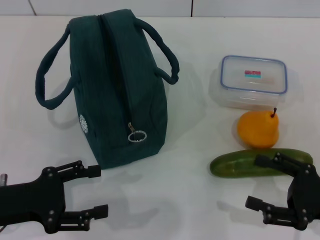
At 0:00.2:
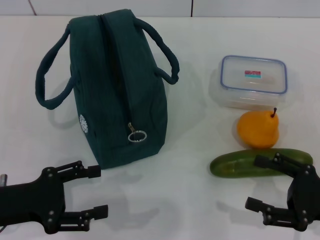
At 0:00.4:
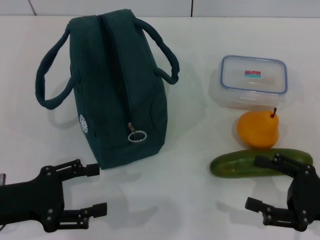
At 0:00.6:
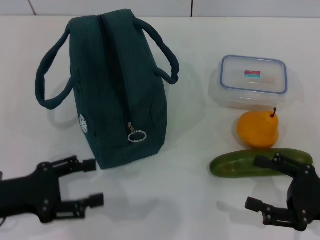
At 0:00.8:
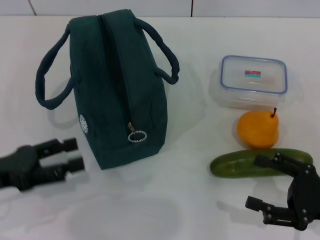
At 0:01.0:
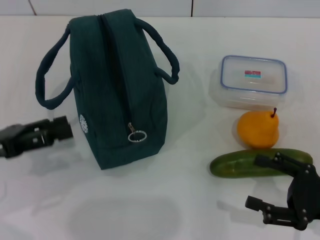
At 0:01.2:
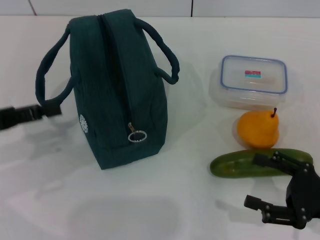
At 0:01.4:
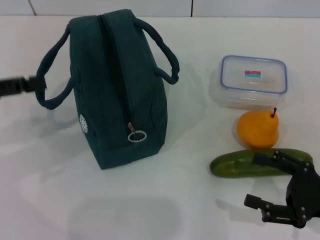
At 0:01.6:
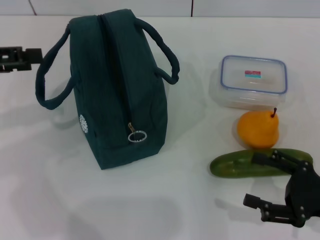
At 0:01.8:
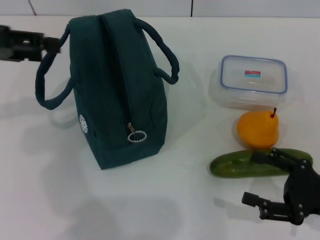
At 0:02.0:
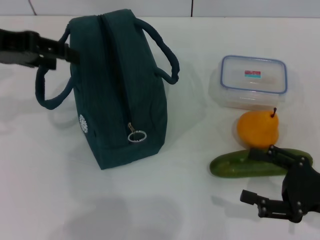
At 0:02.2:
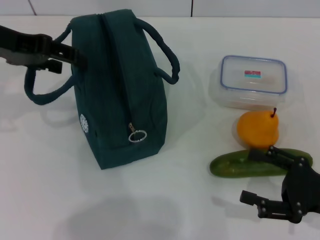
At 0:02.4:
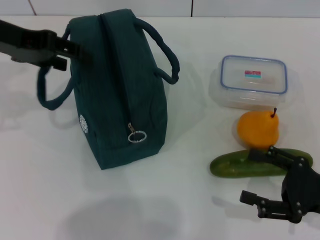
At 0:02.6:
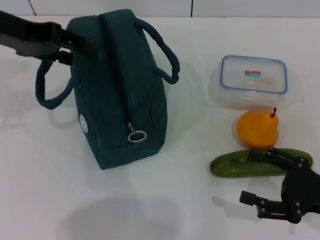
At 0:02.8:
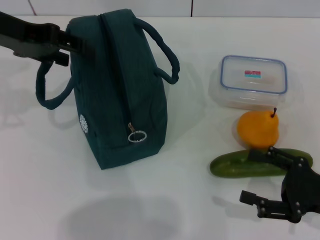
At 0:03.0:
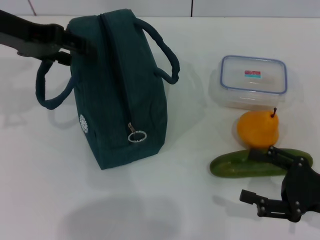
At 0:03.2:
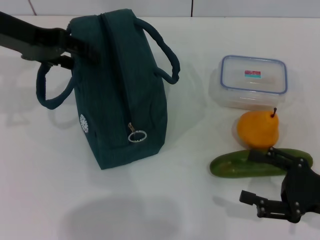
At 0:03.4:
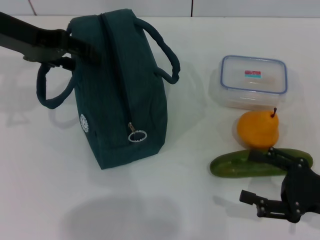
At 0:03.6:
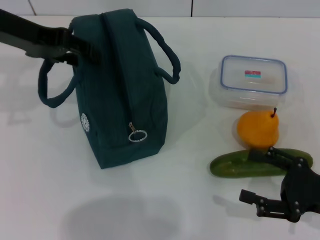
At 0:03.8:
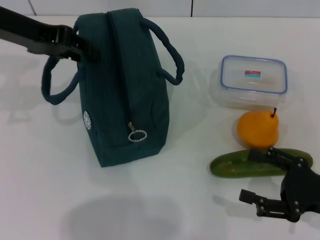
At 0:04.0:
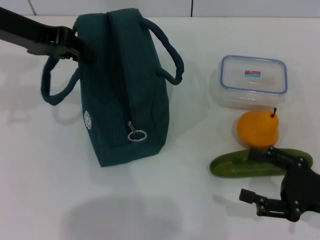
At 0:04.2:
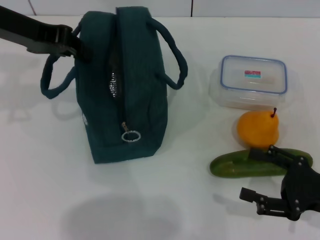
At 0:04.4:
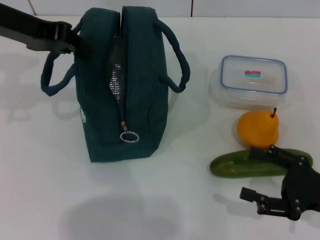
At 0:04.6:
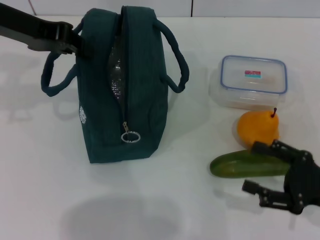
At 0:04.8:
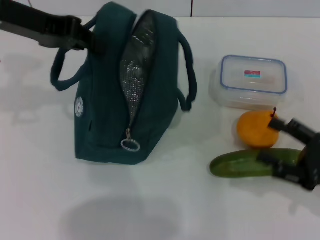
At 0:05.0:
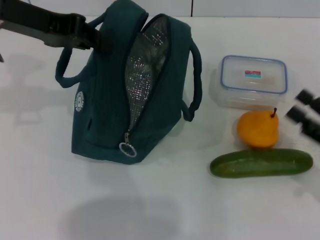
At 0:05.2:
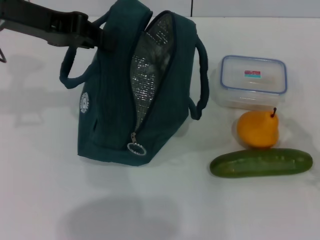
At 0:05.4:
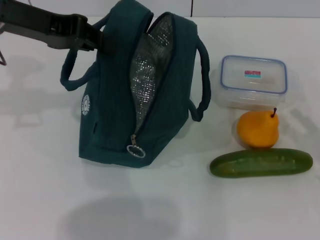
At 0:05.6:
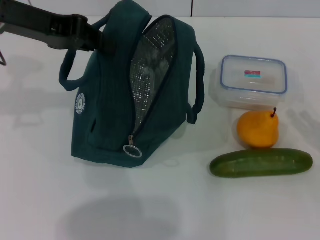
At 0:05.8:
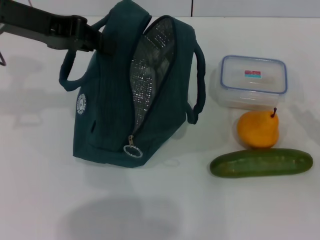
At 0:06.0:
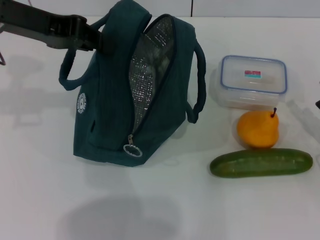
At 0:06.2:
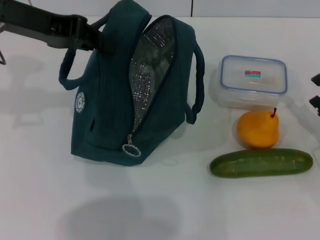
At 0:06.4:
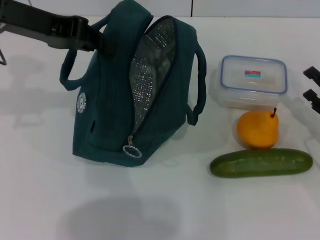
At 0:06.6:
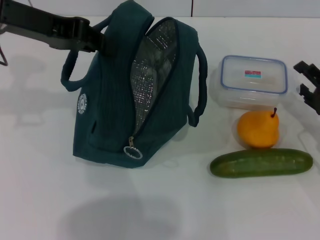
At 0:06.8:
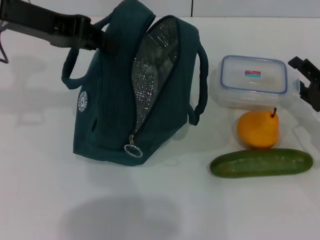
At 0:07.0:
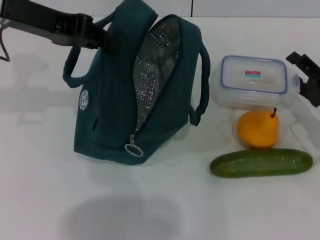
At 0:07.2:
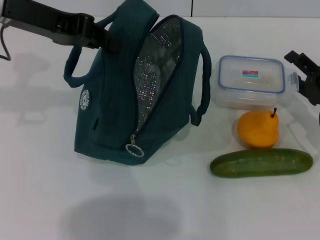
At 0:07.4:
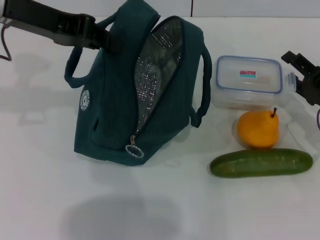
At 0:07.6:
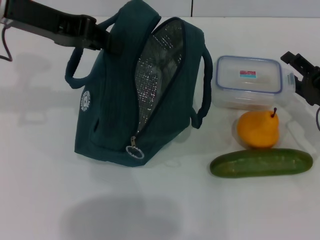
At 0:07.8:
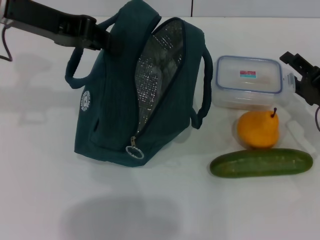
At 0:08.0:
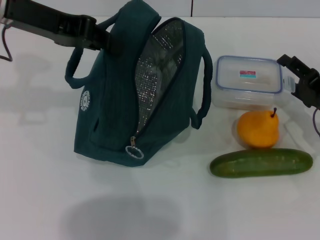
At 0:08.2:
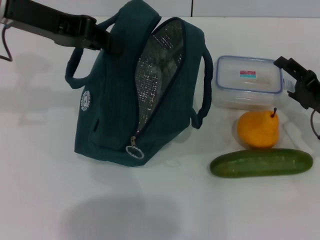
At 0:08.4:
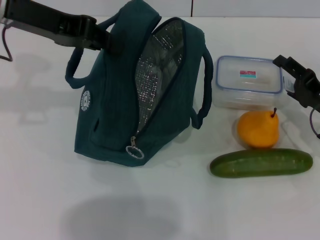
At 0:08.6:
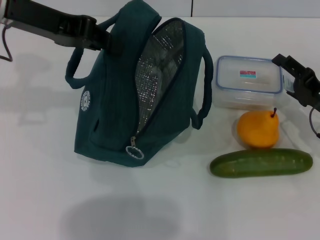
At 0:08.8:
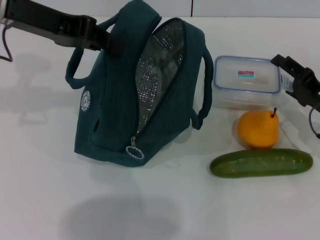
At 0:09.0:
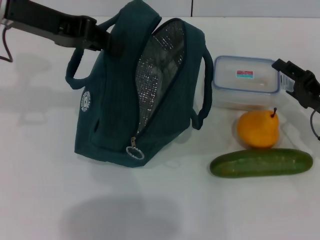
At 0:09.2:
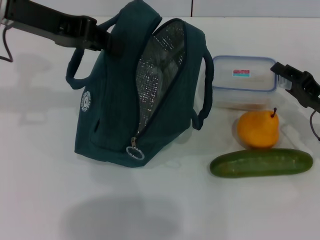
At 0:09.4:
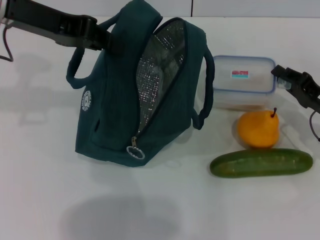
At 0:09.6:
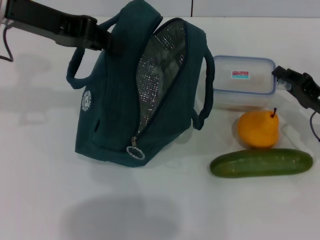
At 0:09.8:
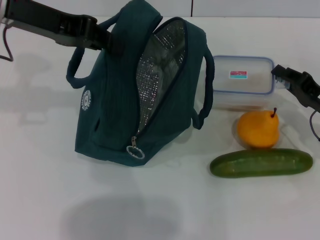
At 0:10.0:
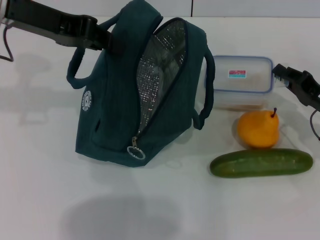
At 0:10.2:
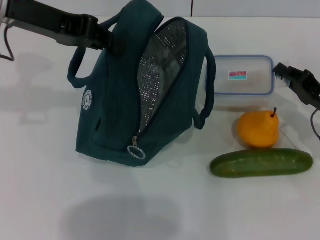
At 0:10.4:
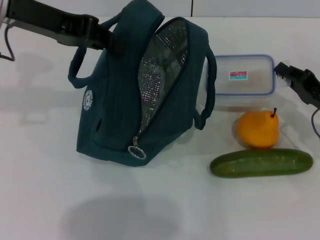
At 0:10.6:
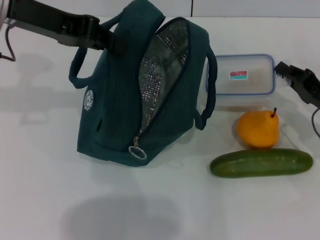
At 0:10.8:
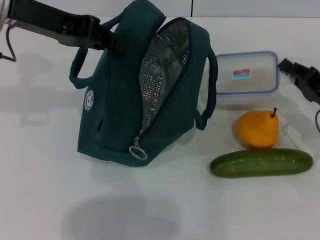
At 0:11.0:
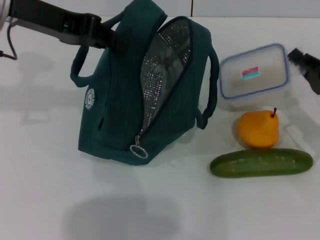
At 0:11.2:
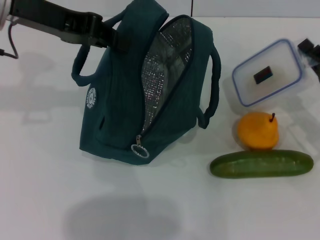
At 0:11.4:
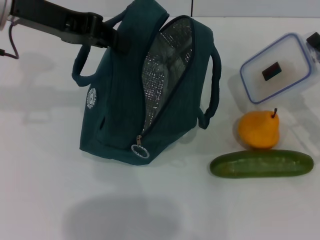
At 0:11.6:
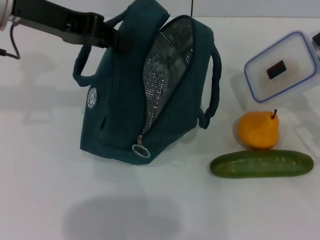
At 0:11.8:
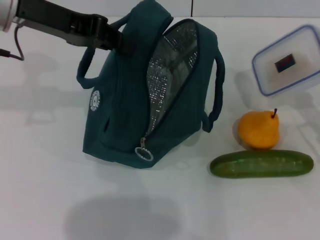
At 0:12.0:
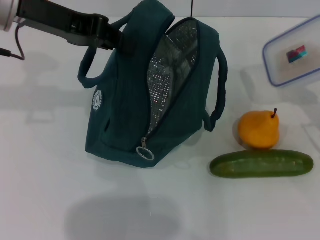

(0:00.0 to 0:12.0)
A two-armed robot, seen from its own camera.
Step, 0:00.0 - 0:04.2: Hold the lunch bag with your left hand.
Step, 0:04.4 - 0:10.2: Pick up the lunch box with your right hand.
0:00.0 - 0:01.6: The left gripper goes some 20 cm upward and forward.
0:01.6 - 0:03.0: The left gripper moves to the right and forward, approximately 10 cm.
0:03.0 - 0:04.4: The left gripper closes up.
0:04.4 - 0:06.0: The right gripper moves about 5 cm.
0:06.0 - 0:07.6: The right gripper is displaced forward by roughly 5 cm.
0:07.6 - 0:09.0: Both grippers stay about where they are.
0:09.0 - 0:10.4: The right gripper closes up.
0:10.4 - 0:12.0: The right gripper shifts by some 5 cm.

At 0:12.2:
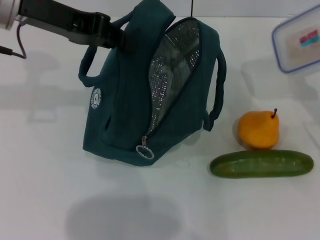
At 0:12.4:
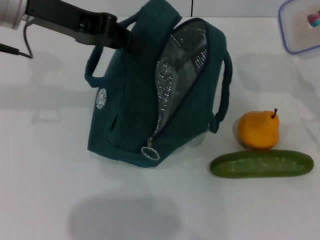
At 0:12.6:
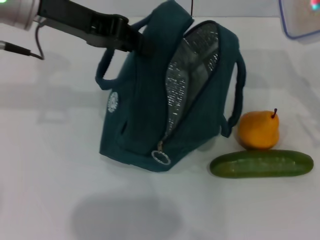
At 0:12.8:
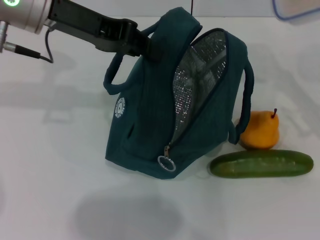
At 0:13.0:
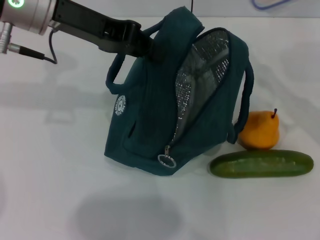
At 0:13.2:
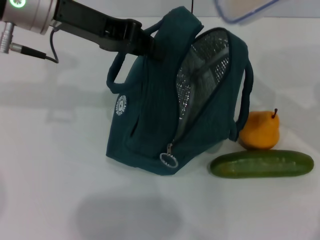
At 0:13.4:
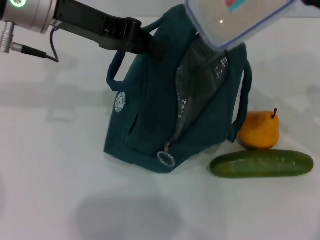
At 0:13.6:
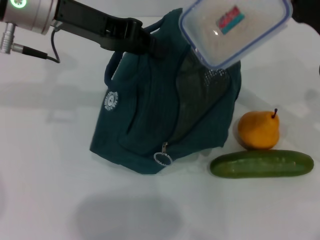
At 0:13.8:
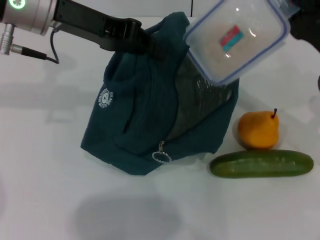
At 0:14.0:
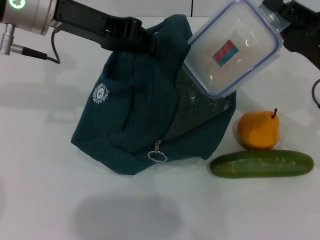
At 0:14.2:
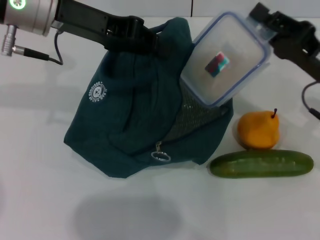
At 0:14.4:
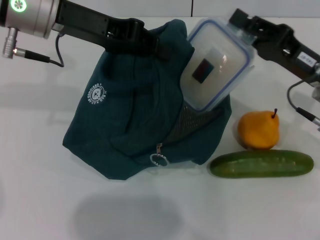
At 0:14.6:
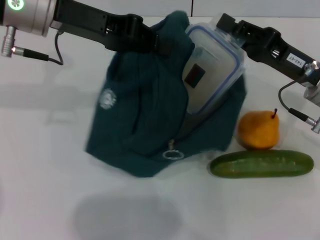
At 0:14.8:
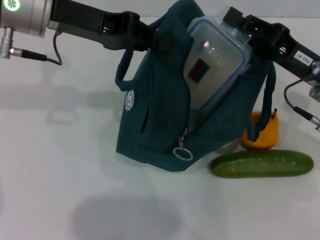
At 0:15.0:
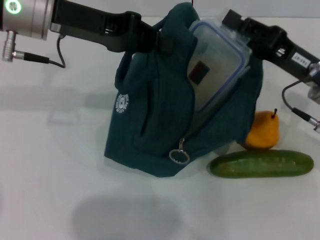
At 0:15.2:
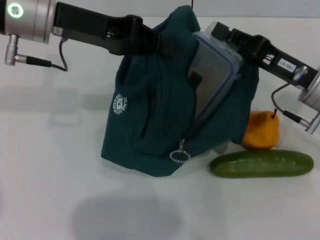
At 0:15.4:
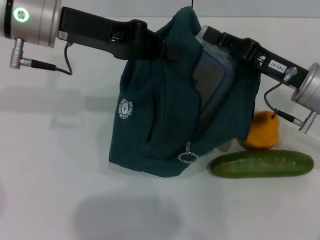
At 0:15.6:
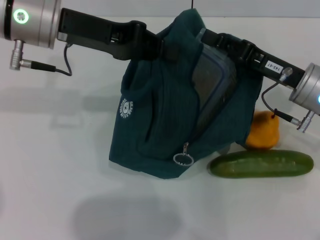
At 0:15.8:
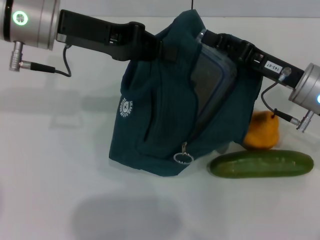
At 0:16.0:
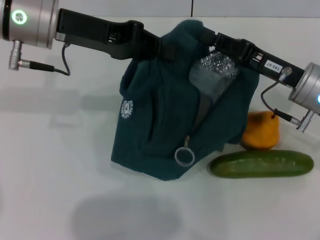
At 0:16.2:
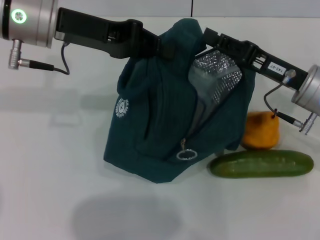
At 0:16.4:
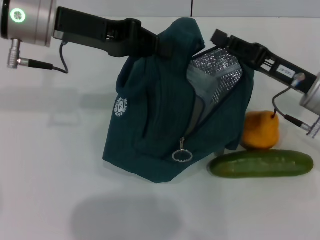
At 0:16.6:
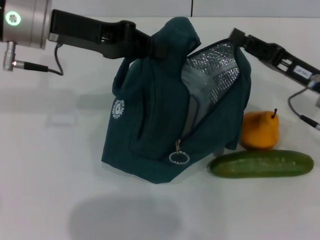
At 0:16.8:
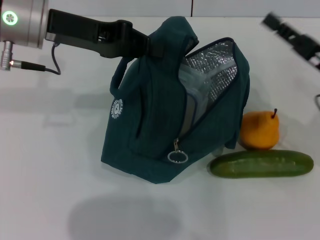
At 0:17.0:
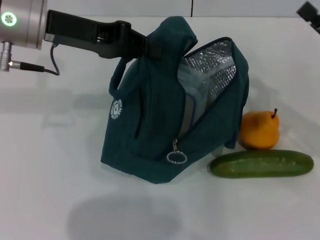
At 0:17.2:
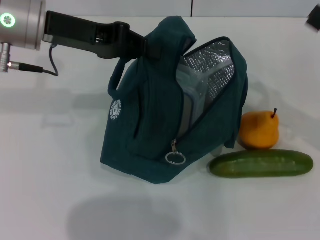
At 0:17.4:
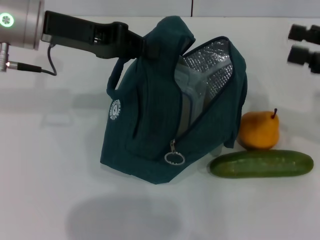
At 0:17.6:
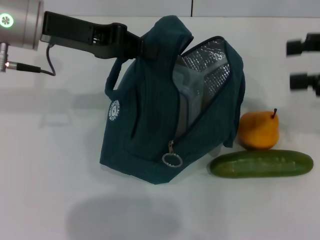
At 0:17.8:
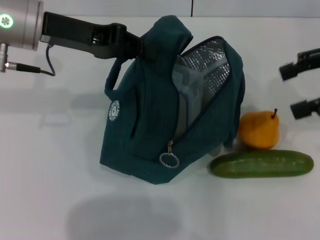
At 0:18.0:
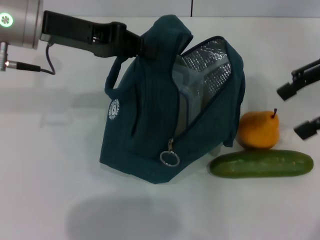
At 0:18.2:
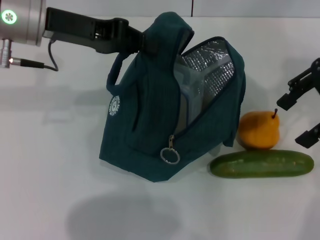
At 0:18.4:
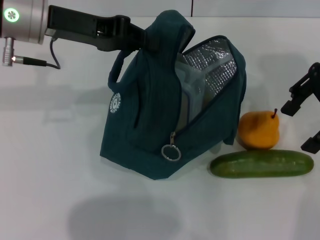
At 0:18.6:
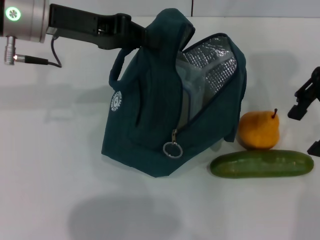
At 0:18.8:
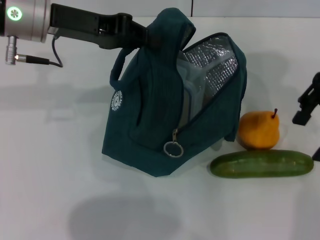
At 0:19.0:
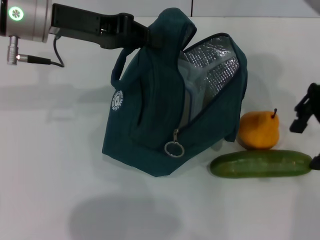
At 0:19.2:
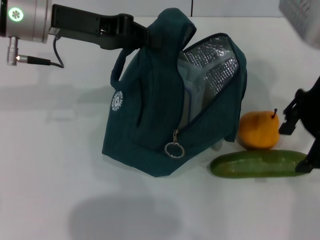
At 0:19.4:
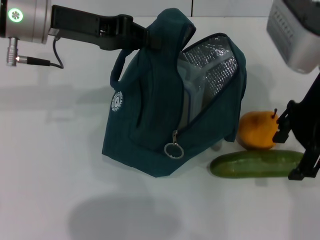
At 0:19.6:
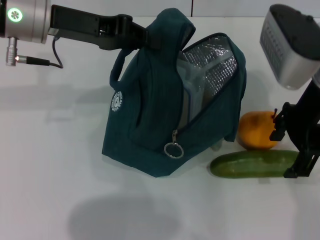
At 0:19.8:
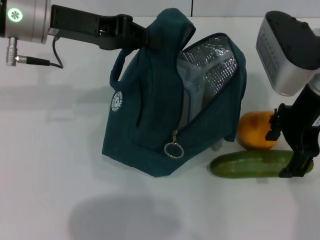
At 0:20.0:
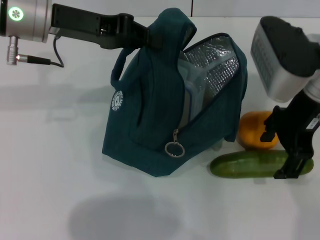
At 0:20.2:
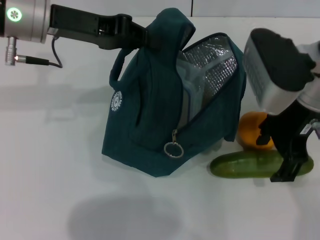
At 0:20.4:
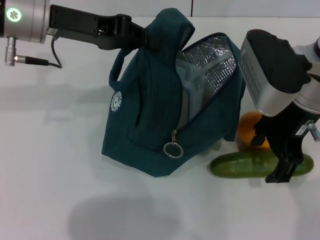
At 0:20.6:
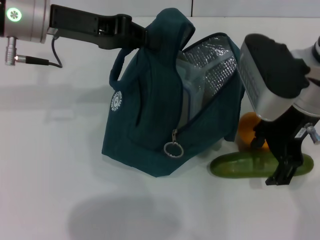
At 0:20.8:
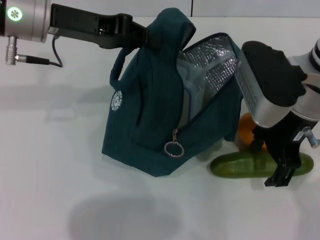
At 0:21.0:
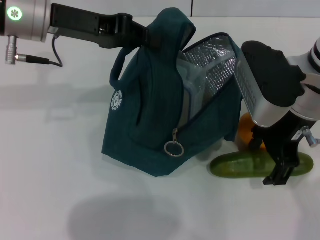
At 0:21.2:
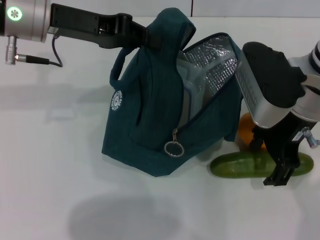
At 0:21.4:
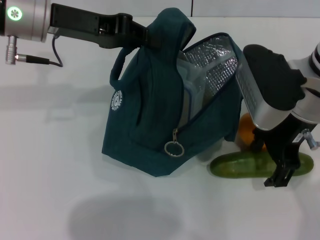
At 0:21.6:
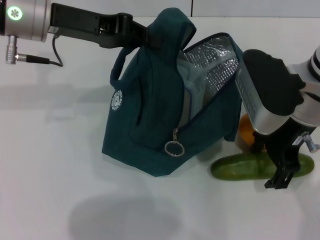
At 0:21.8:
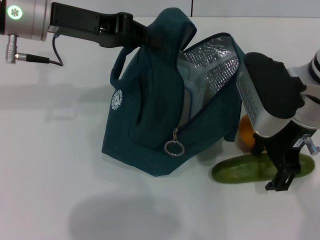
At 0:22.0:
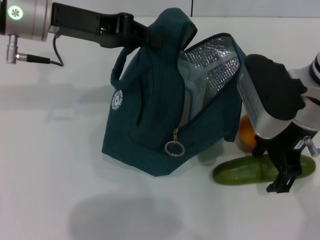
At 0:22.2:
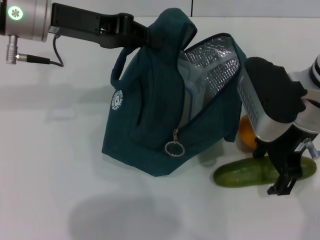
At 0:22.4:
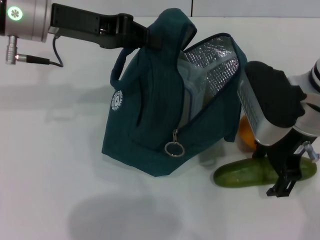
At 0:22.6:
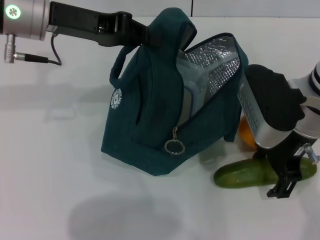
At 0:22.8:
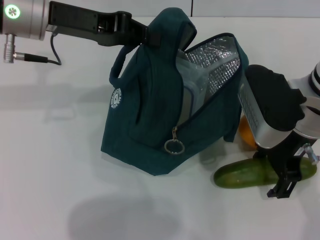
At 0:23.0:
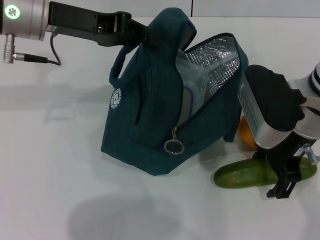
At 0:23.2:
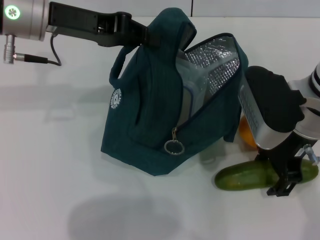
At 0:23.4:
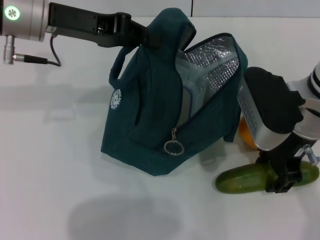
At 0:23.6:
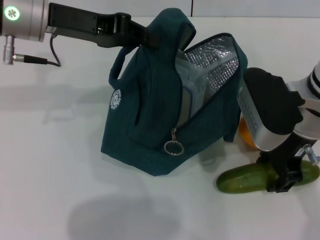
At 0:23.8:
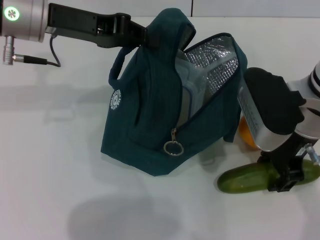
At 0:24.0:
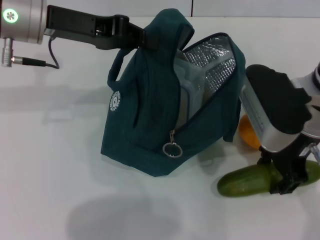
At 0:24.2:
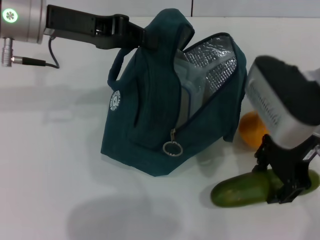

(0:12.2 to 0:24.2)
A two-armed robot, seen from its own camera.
Step, 0:12.2 - 0:15.8: Place the lunch box into the lunch bag with your right hand.
Step, 0:16.2 - 0:23.6: Pick up the cucumber with your right hand.
0:12.2 - 0:13.8: The right gripper moves to the left, approximately 10 cm.
0:15.2 - 0:16.6: The grippers make only small movements.
0:16.6 - 0:18.2: The right gripper travels upward by some 20 cm, and opens up.
0:18.2 - 0:19.8: The right gripper is displaced to the left and downward by some 10 cm.
0:19.8 - 0:24.2: The grippers make only small movements.
